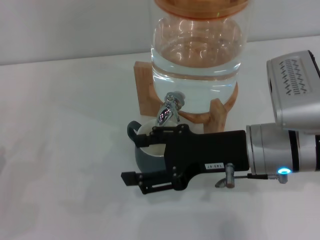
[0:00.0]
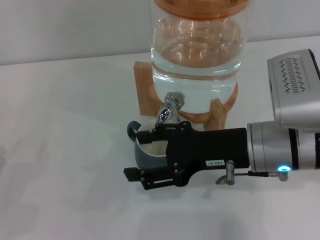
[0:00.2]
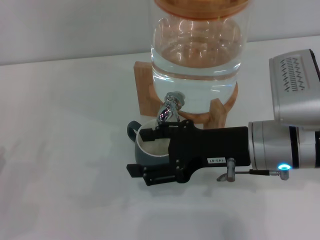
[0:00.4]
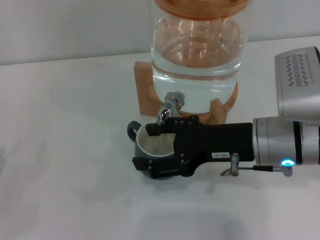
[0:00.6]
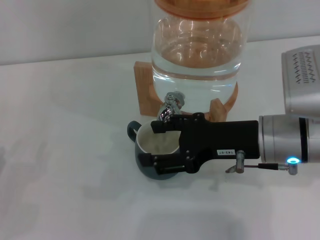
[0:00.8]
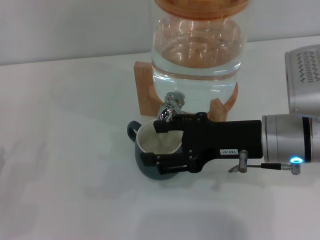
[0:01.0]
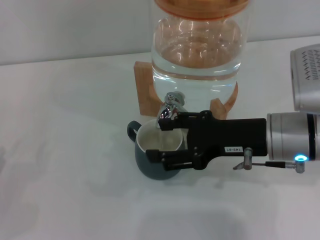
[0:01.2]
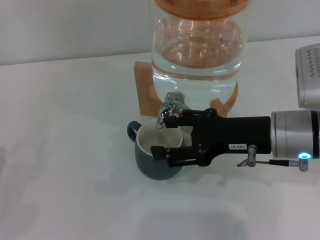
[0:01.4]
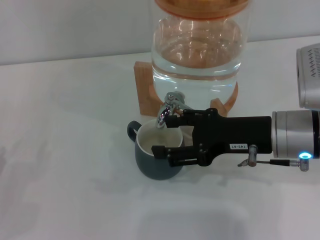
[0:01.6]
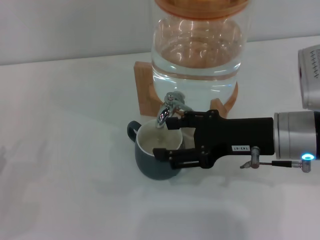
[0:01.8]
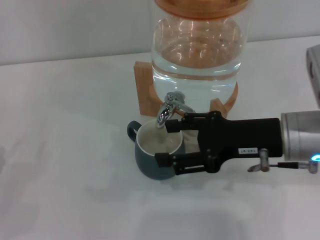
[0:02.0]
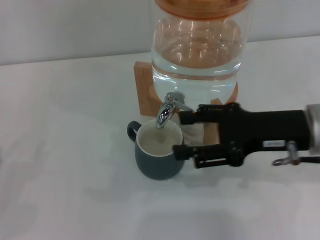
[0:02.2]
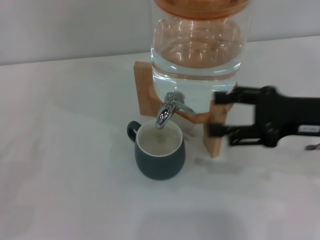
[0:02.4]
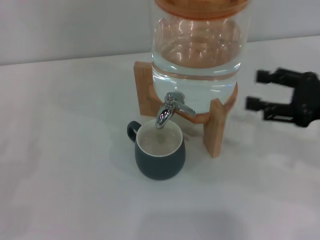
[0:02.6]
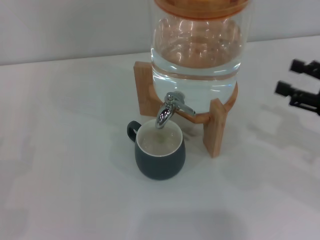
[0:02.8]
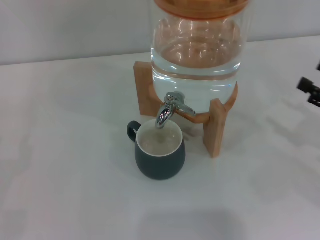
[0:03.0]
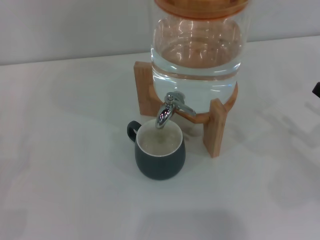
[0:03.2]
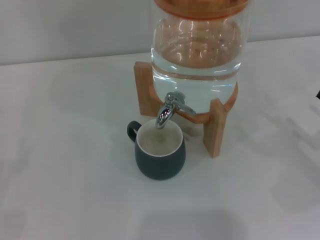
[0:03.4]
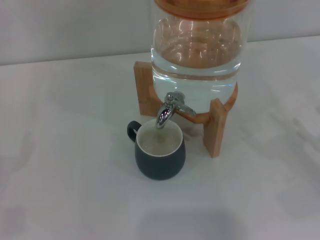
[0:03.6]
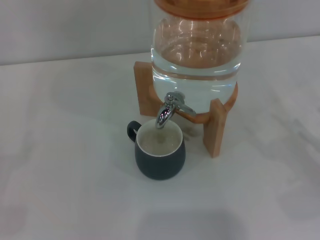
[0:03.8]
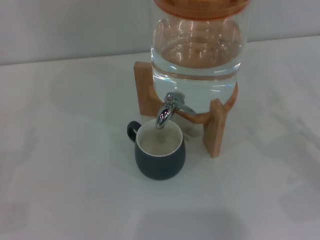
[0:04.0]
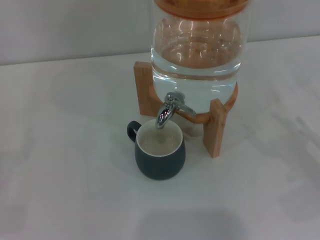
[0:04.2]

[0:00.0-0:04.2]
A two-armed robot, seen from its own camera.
Task of the whole recording: the left gripper pick up the black cup and place it horizontally under the faucet, the right gripper turn on the faucet to fill the cup, and then turn off the faucet.
Step, 0:00.6 to 0:02.2: Close the dispenser valve with the right gripper.
0:00.0 to 0:01.4: The grippers stay close to where they were, moving slightly.
0:01.4 to 0:02.8: The right gripper travels to the right by approximately 15 cm.
0:02.8 to 0:04.2: The right gripper shifts roughly 10 cm downward.
